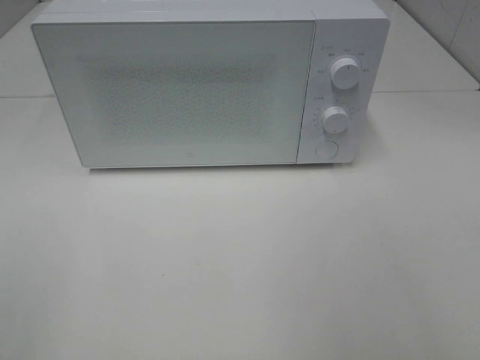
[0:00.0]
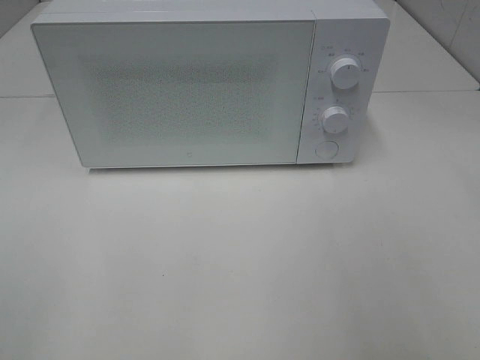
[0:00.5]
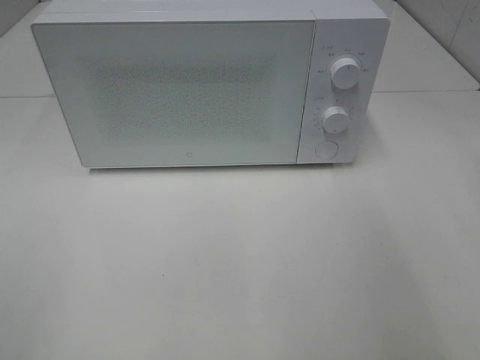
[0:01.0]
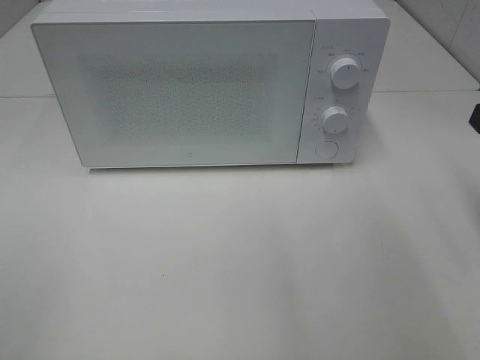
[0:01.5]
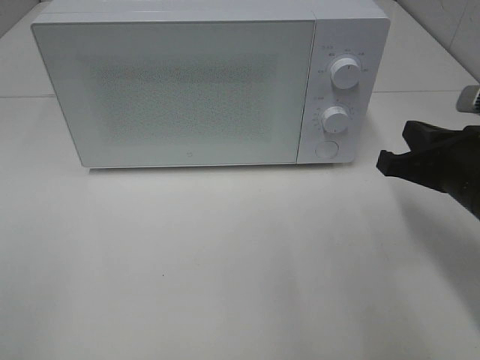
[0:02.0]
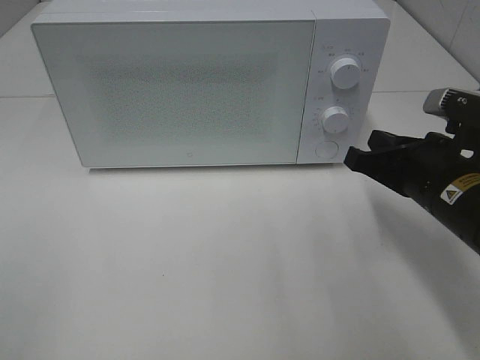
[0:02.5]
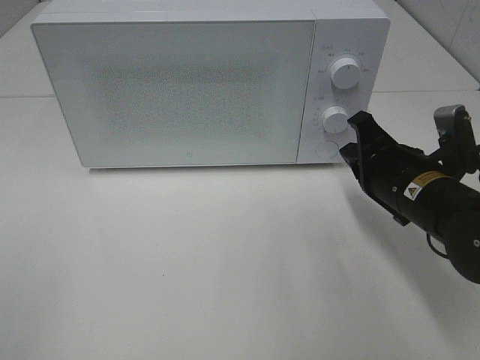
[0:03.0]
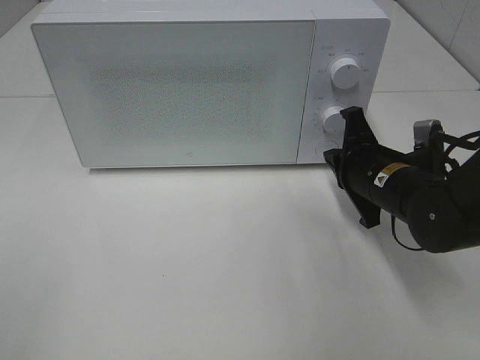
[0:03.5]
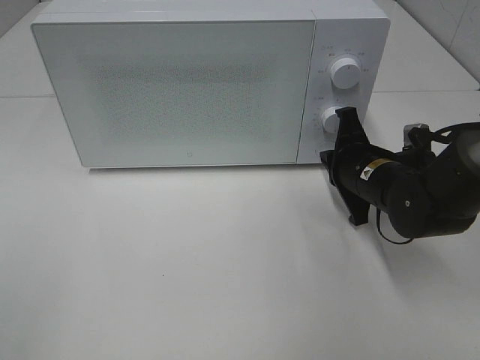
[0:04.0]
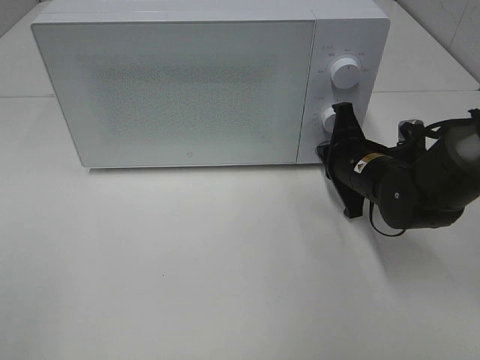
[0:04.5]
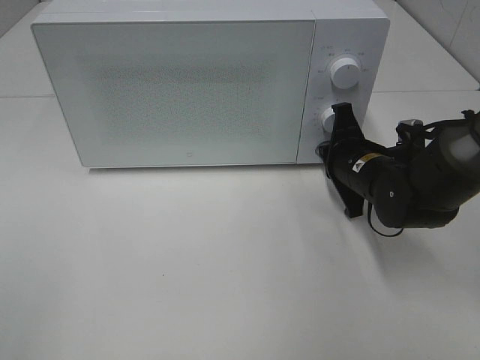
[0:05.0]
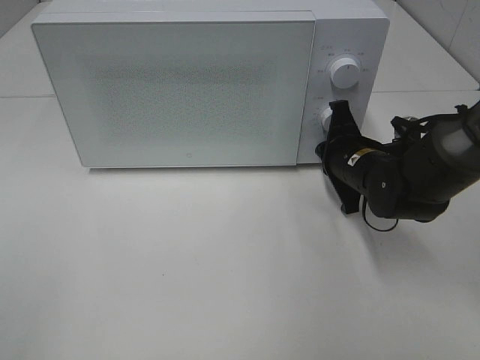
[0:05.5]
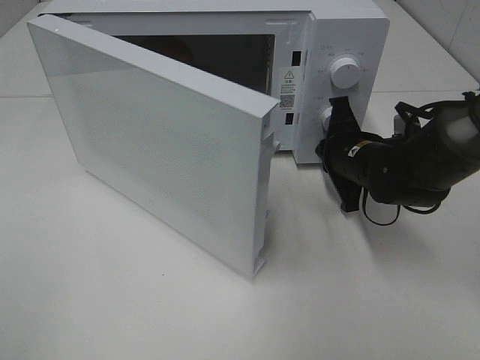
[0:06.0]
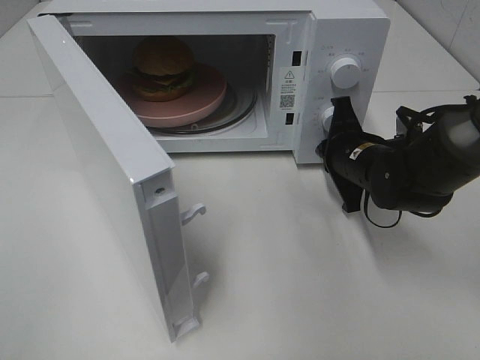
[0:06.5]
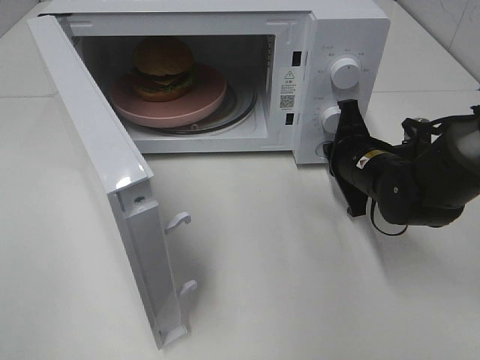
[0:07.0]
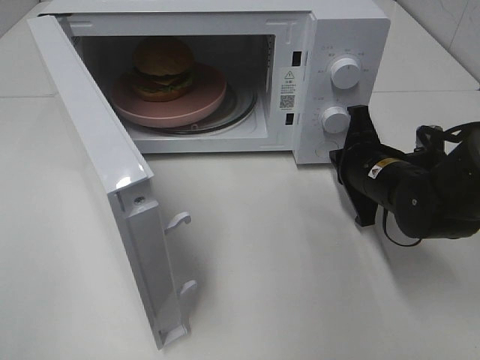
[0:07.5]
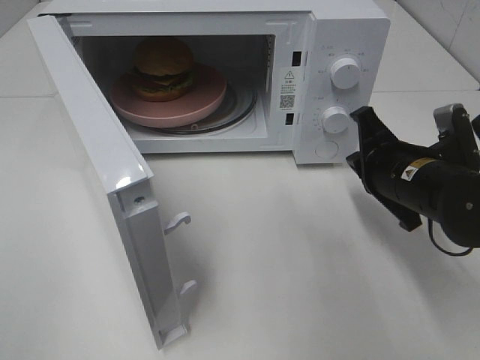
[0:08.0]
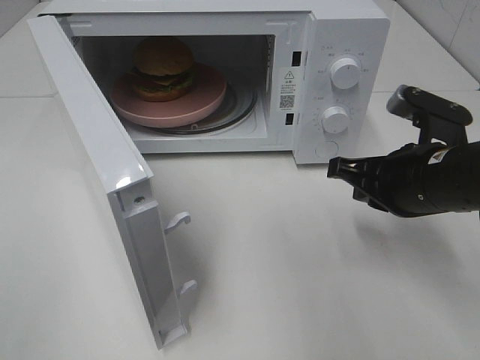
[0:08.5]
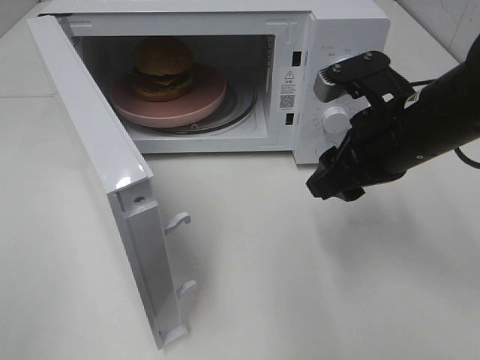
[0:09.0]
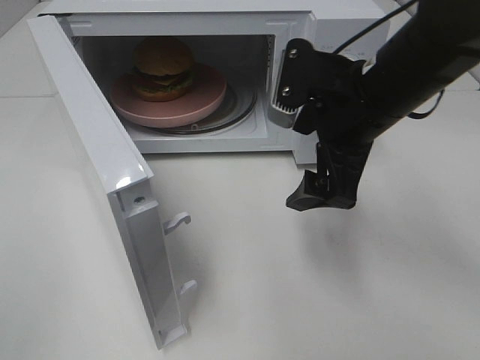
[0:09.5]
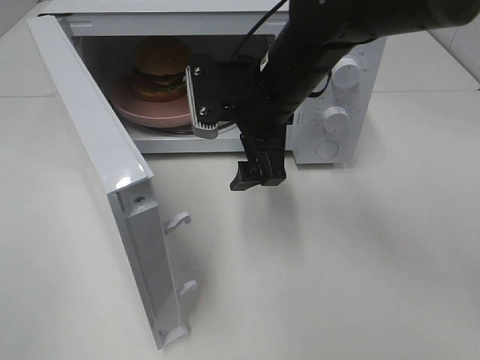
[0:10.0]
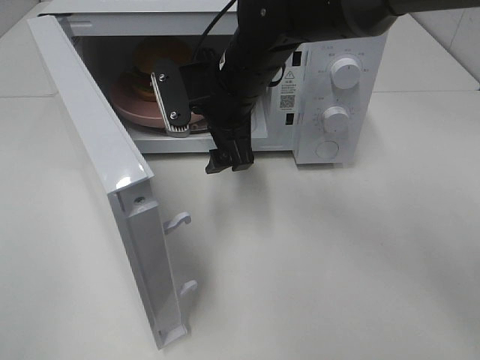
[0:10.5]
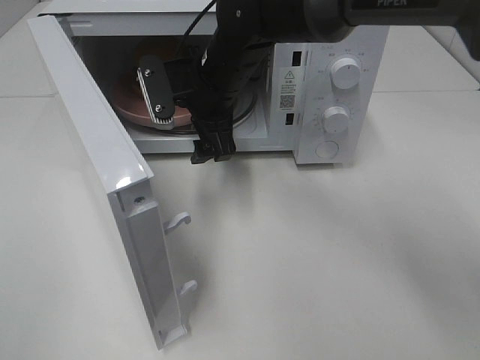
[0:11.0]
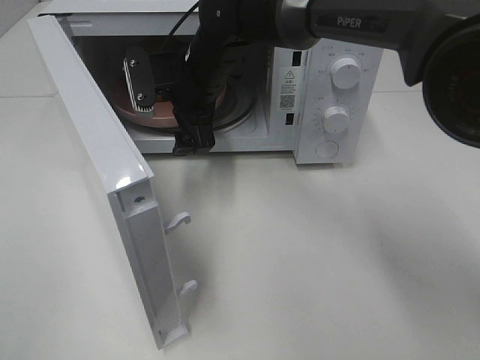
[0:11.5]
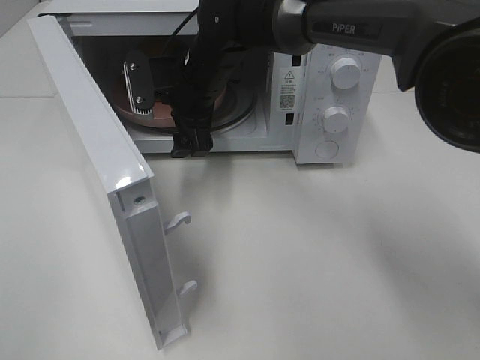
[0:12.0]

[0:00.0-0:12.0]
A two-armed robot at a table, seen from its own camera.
Task of the whole recording: Heat the burger.
Step, 0:00.0 to 0:07.0: Right hand: press the switch.
0:00.0 to 0:02.0: The right gripper shifts some 25 cm forward and downward, and closes its fingers.
0:02.0 to 0:04.0: The right gripper goes about 15 cm forward, downward and to the left.
0:06.0 to 0:08.0: The right gripper is displaced backward by some 10 cm.
0:08.0 to 0:10.0: The right gripper moves to the left and upward, roughly 20 cm, and opens up.
0:10.0 to 0:12.0: The right gripper goes roughly 10 cm to the left and forward.

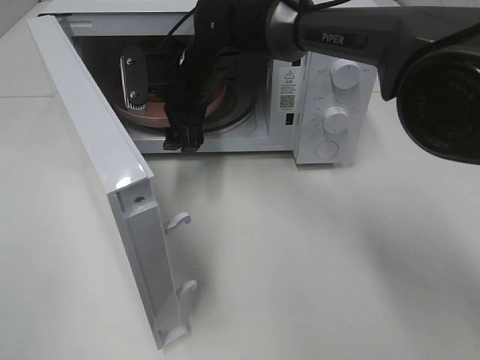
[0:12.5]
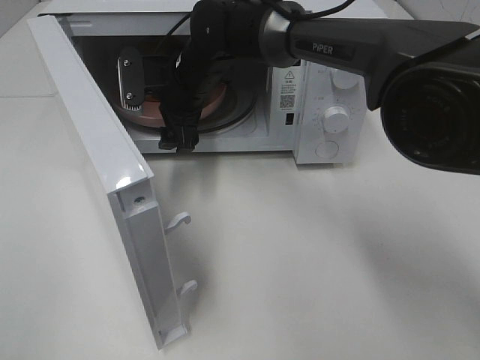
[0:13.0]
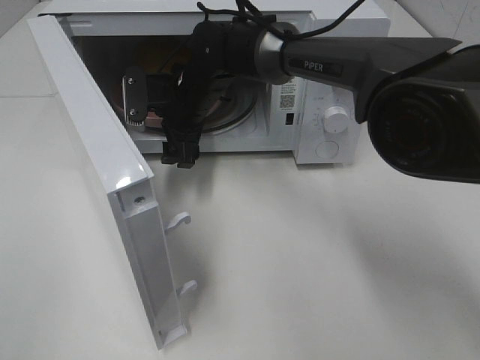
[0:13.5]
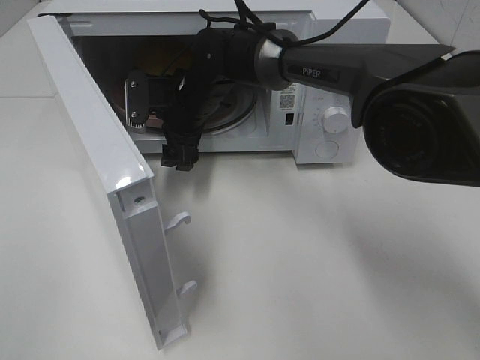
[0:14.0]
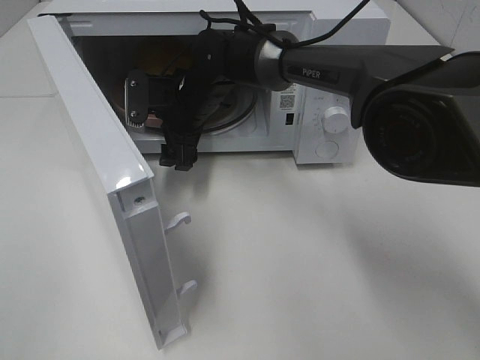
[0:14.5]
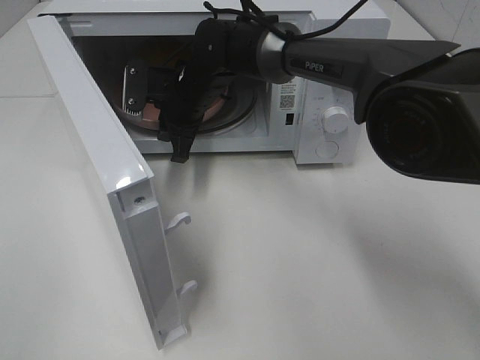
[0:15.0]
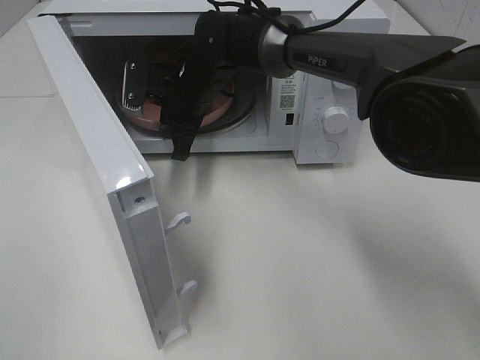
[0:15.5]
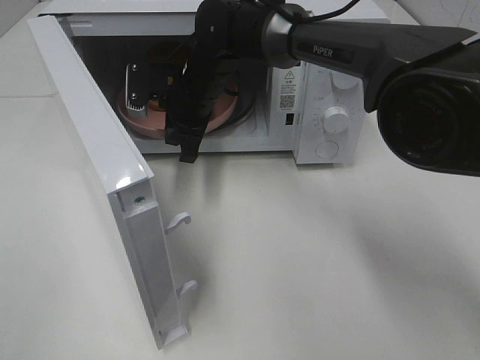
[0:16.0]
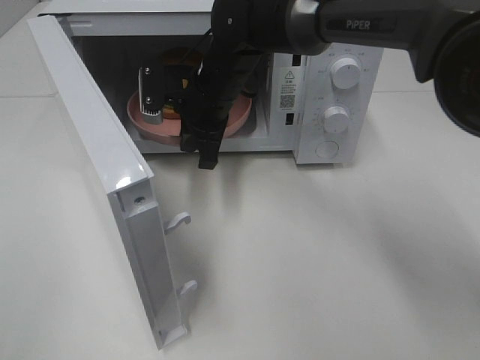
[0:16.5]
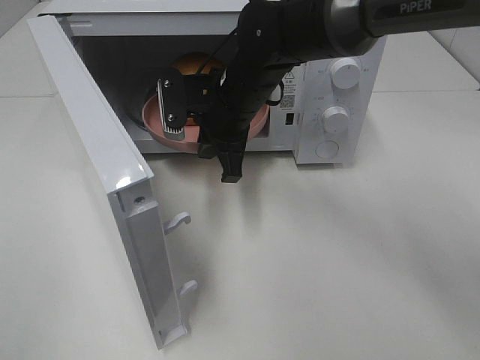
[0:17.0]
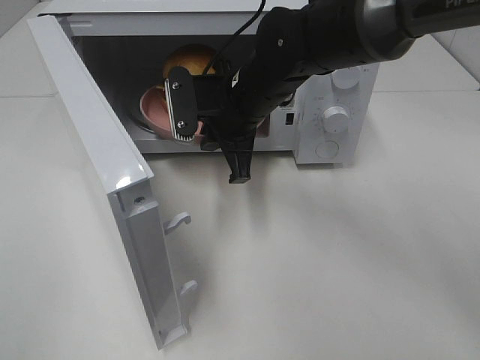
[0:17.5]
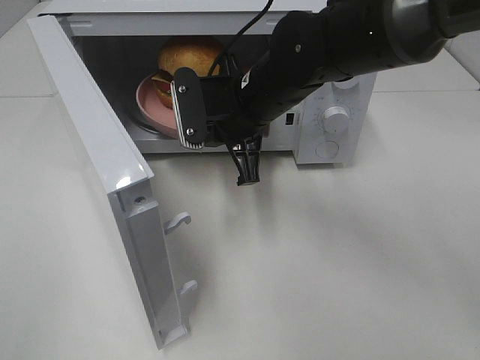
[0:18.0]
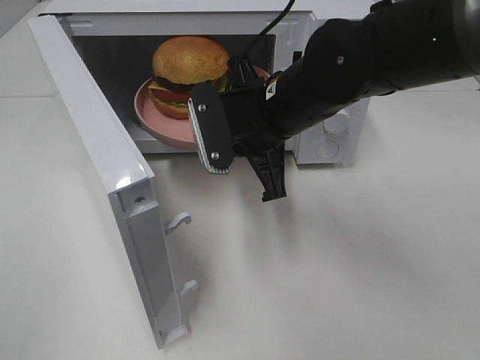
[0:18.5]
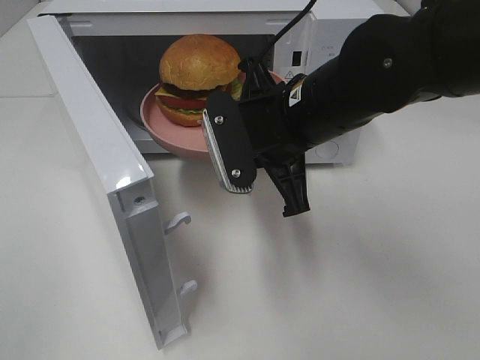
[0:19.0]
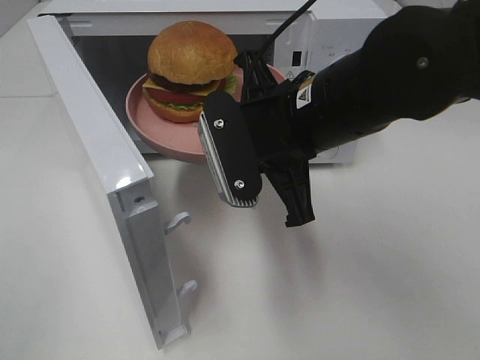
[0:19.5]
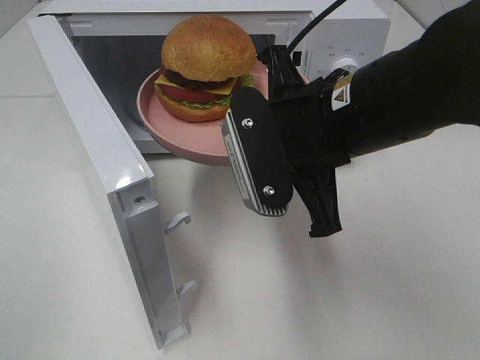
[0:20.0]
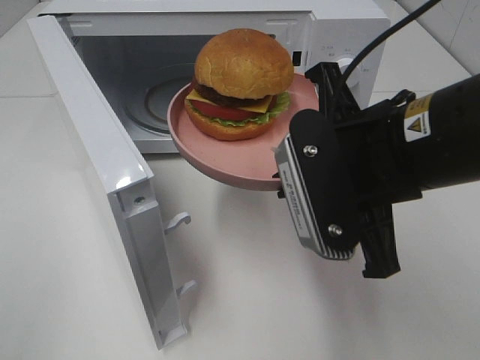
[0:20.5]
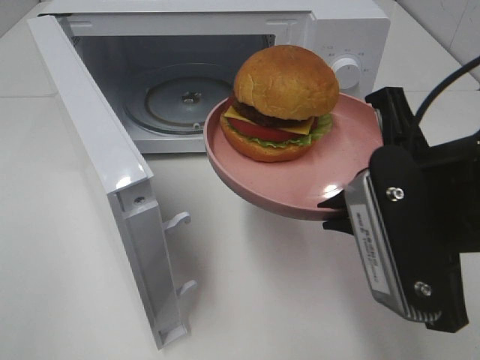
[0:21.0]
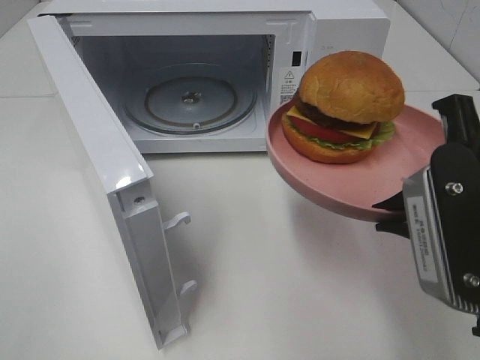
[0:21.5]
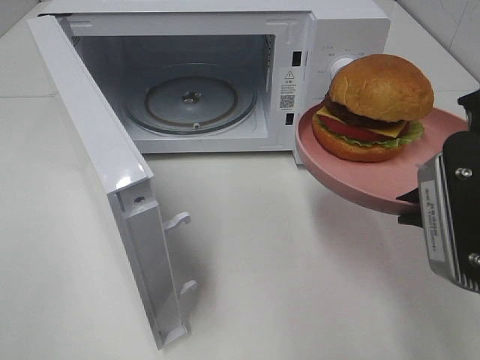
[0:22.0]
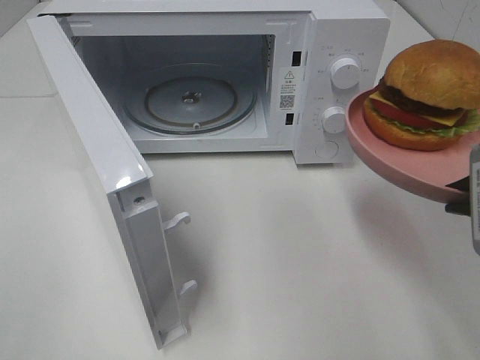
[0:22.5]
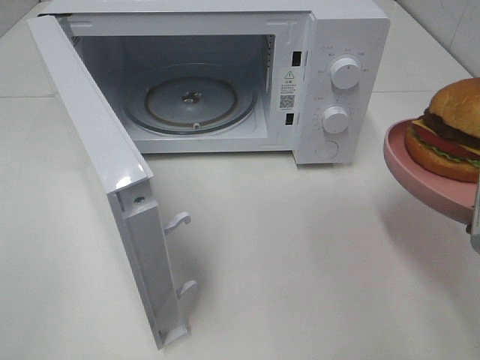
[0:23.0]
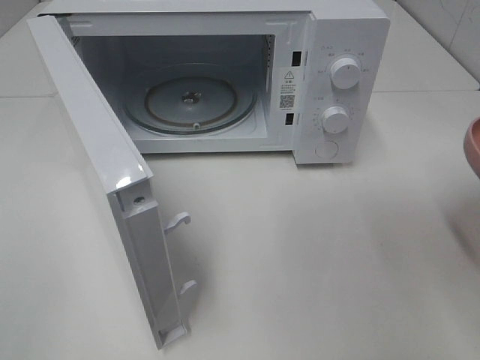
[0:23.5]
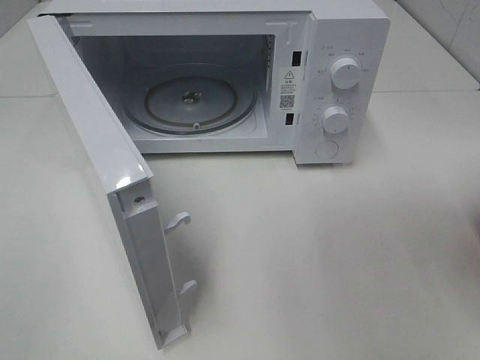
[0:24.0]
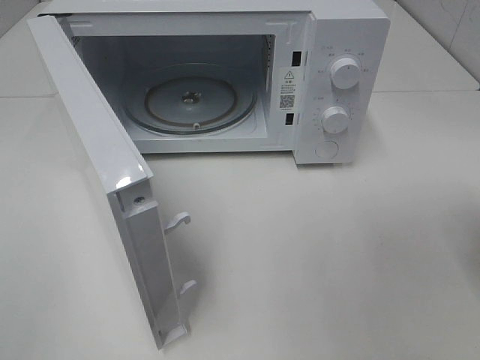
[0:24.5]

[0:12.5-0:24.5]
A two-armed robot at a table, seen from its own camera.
Task of the whole recording: Heat the burger.
Step, 0:12.5 to 0:15.0: Right hand: grab the plate with the hamburger.
0:12.5 to 0:14.5: The grippers make only small movements.
0:14.5 to 0:16.5: The right gripper shifts by approximately 5 cm, and closes.
0:16.5 to 0:18.5: The right gripper is displaced backward and to the right by approximately 10 cm.
0:18.5 to 0:20.5: The right gripper is displaced backward, to the right and upward by approximately 15 cm.
0:20.5 to 0:22.5: The right gripper is displaced to the right by some 10 cm.
0:22.5 to 0:24.5: The right gripper moves to the right and downward, about 10 cm.

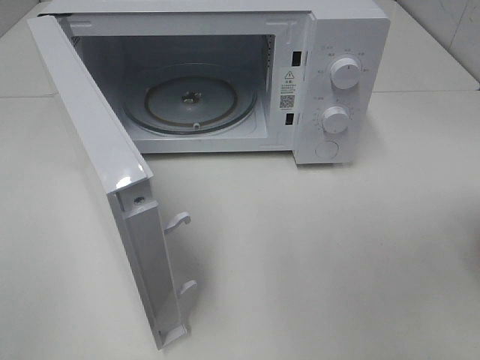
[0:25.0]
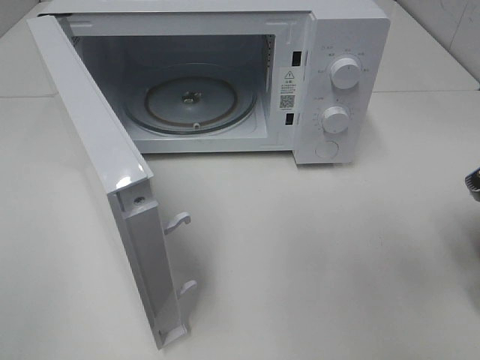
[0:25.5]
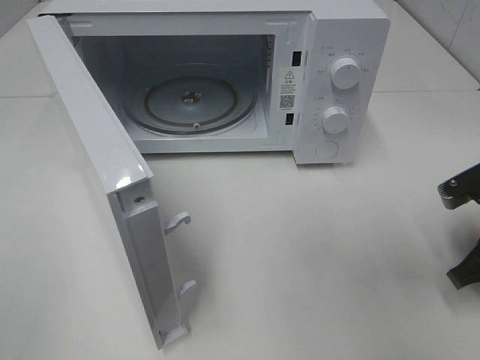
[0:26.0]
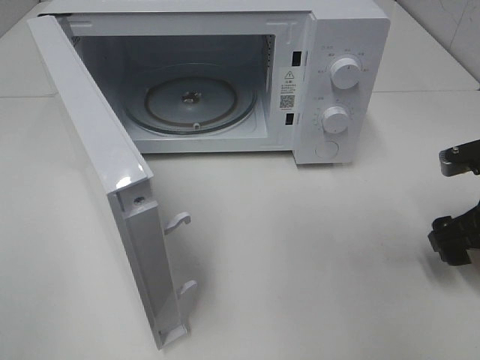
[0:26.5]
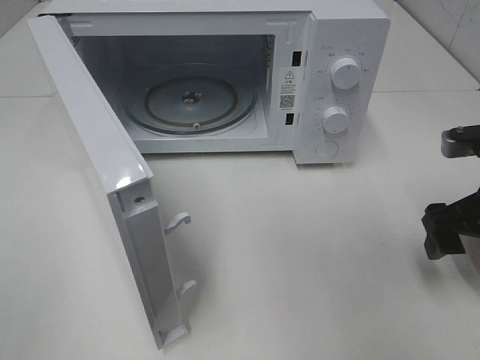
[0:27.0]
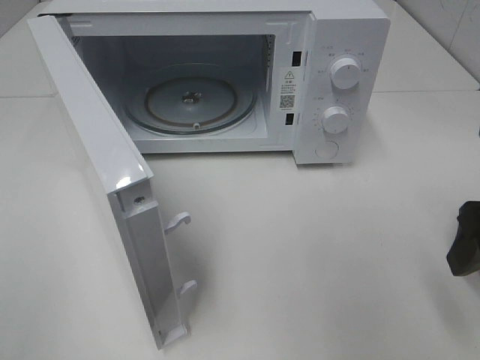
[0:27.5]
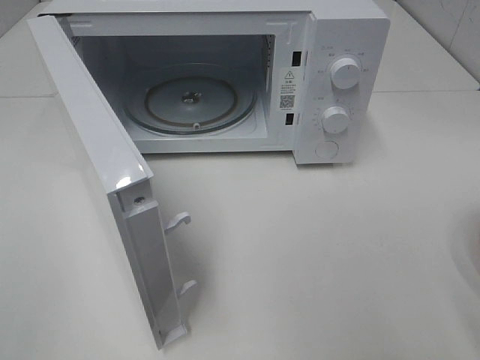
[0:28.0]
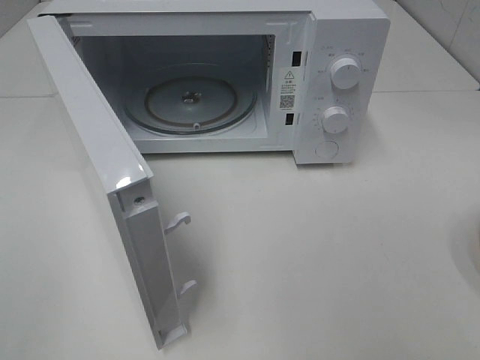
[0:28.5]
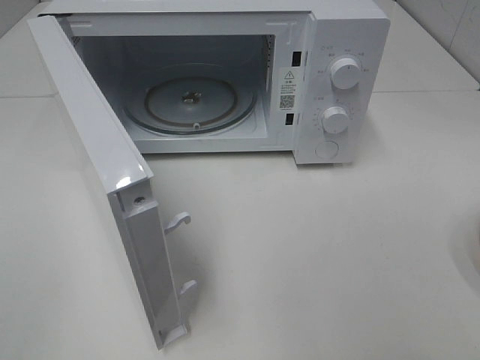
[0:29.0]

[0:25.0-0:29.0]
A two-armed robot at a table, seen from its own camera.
Task of the whole recording: Heat the burger.
0:25.0 to 0:27.0: The right gripper moves some 5 cm, and opens its fingers.
0:27.0 to 0:29.0: The right gripper travels backward and upward by about 25 cm.
